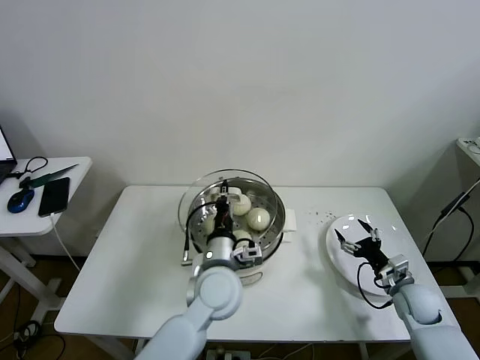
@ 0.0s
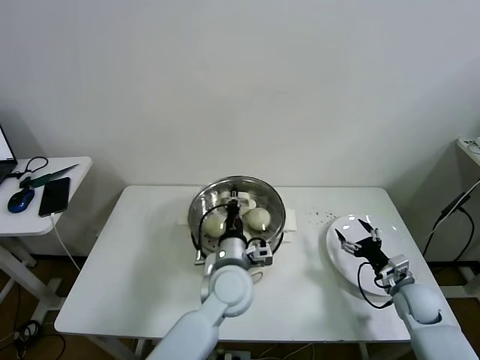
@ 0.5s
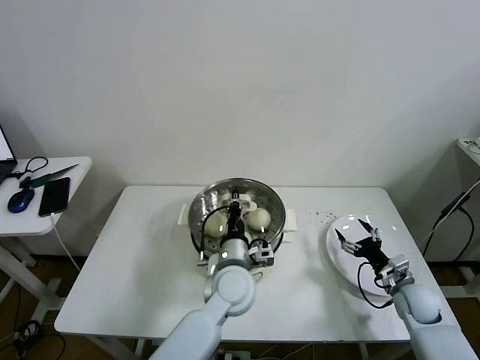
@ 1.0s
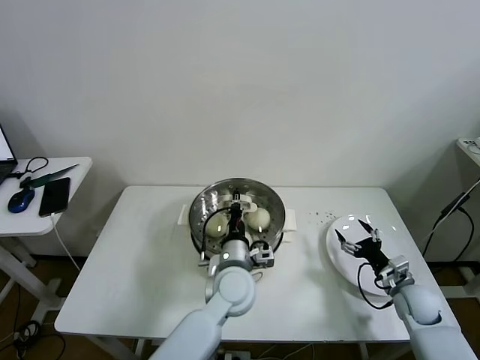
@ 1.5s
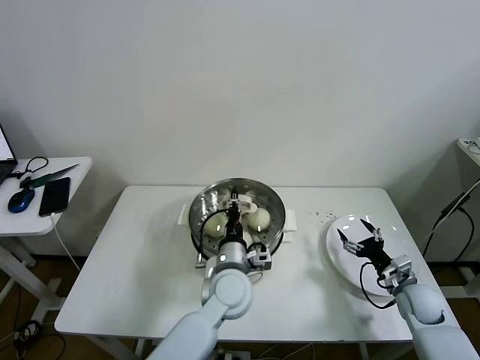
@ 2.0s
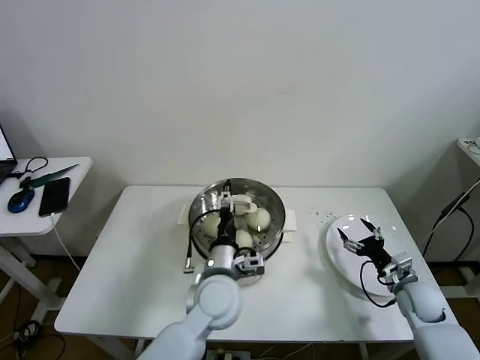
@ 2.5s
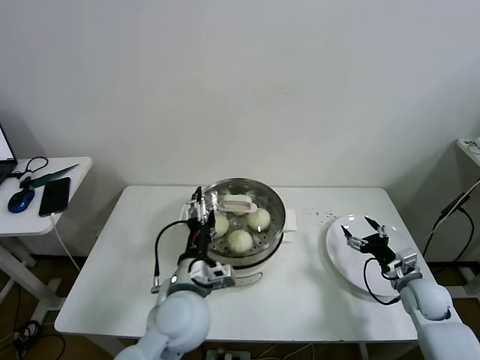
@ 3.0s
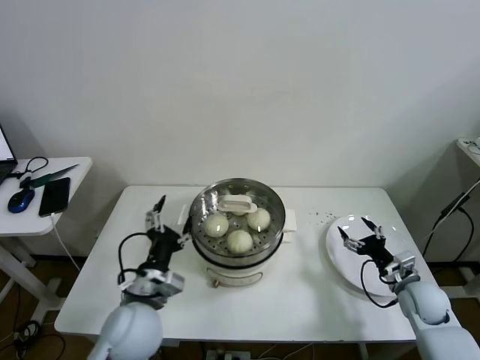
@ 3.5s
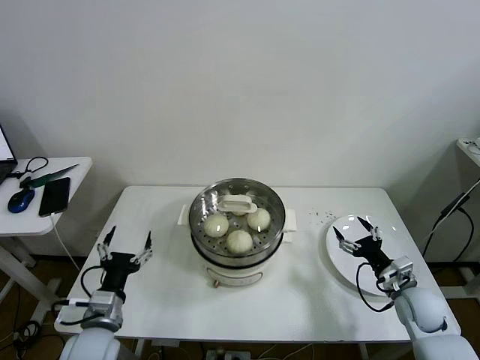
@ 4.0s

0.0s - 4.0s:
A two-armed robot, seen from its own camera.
Task of the whole recording: take steamed baozi put them in steamer then cover it.
Step, 0.0s - 2.0s: Place the pot lid on the steamer with left gripper.
0.0s - 2.0s: The left gripper shifts by roughly 5 cm.
2.0s - 4.0s: The left gripper is displaced to the left and backward by approximately 25 cm, and opens.

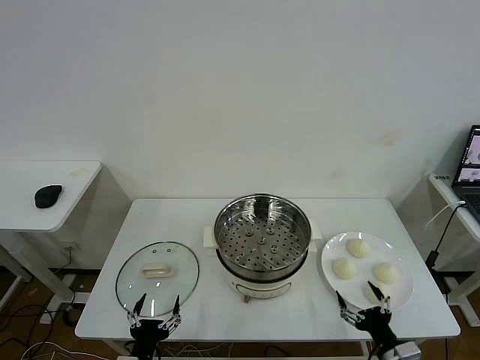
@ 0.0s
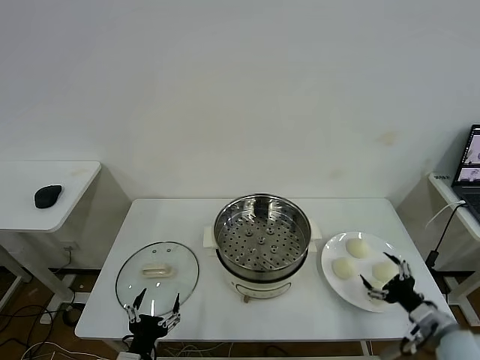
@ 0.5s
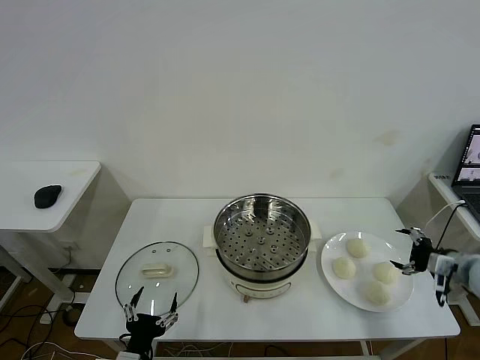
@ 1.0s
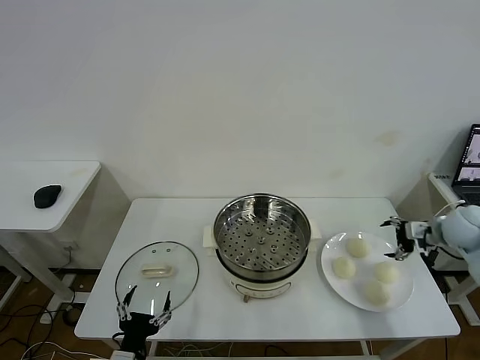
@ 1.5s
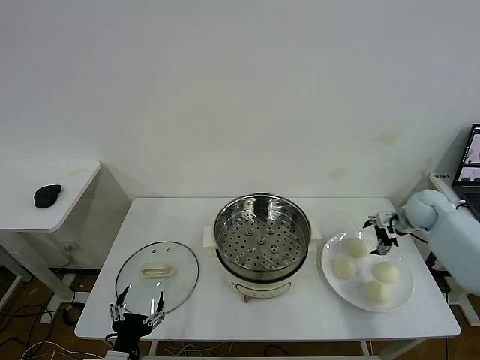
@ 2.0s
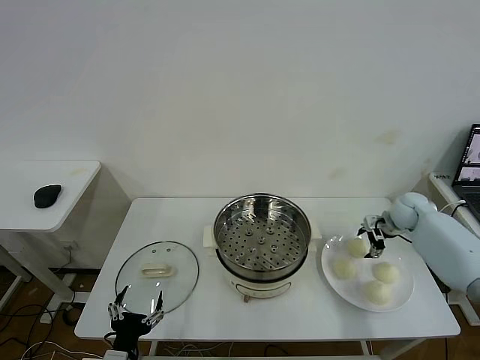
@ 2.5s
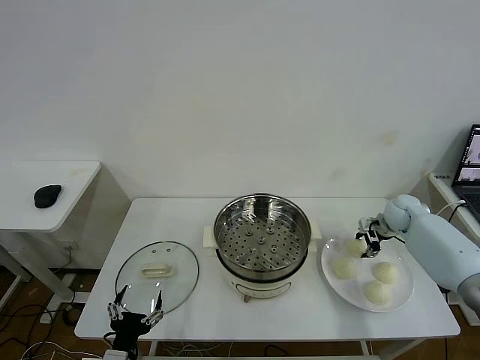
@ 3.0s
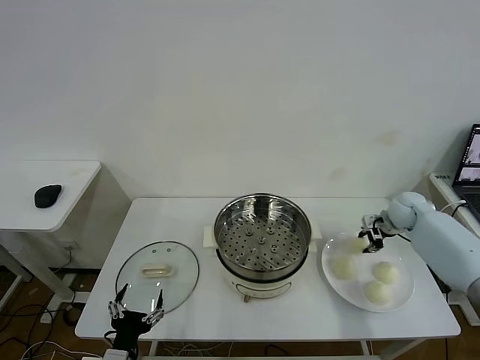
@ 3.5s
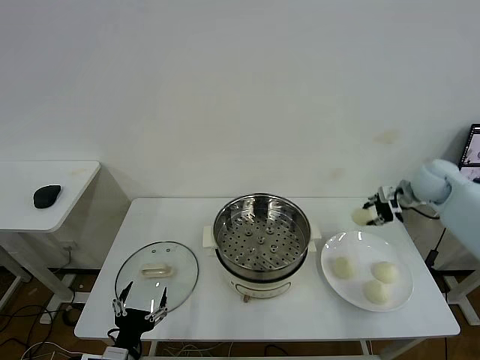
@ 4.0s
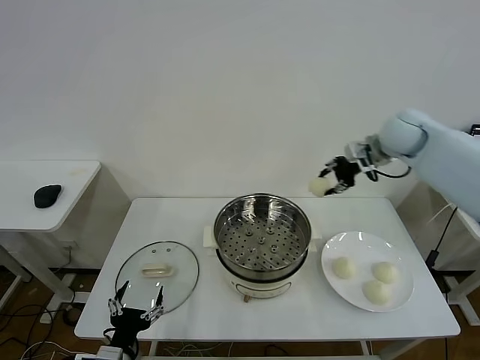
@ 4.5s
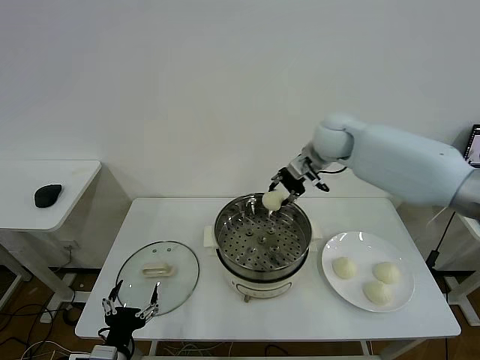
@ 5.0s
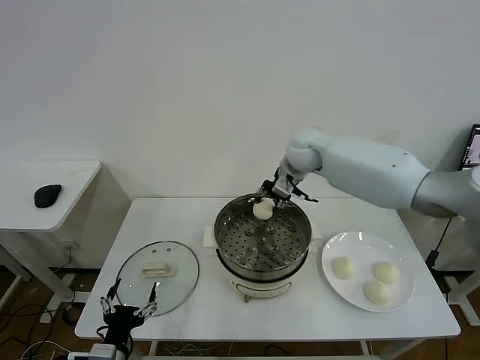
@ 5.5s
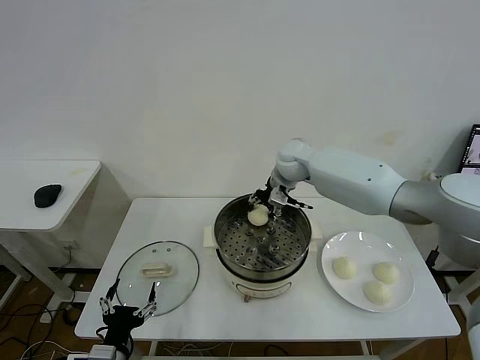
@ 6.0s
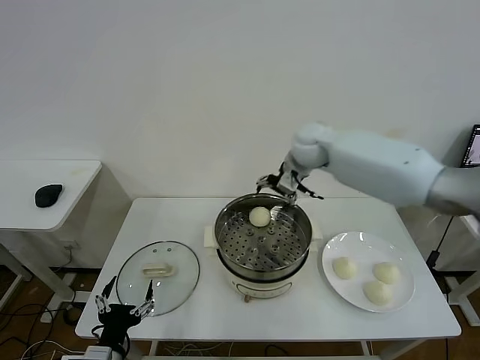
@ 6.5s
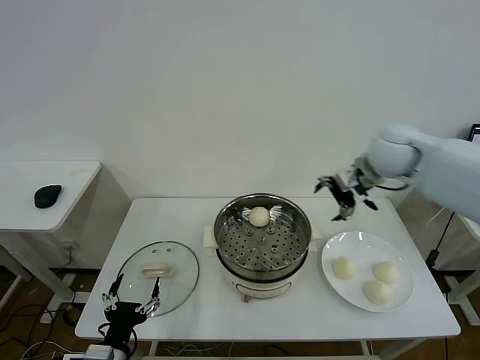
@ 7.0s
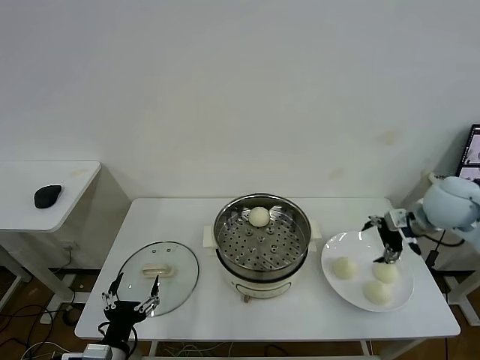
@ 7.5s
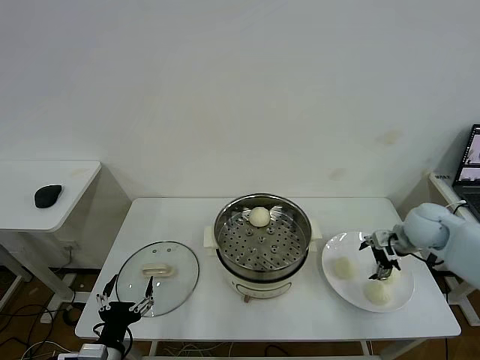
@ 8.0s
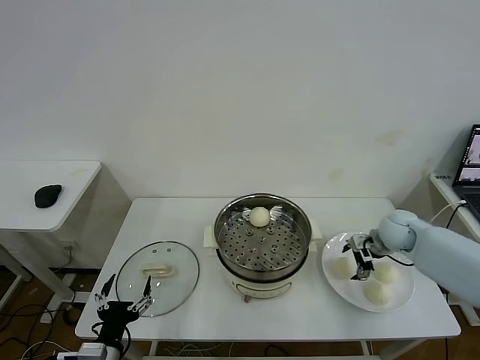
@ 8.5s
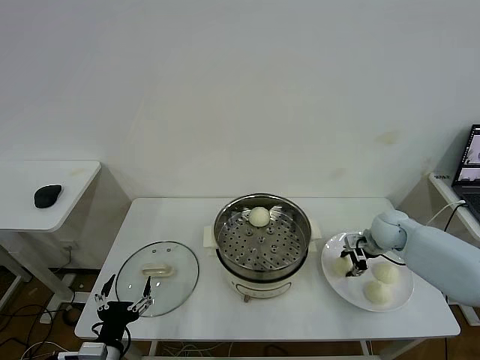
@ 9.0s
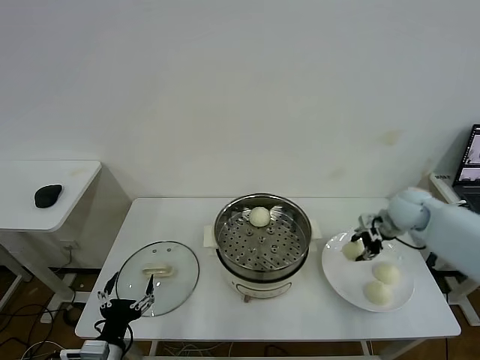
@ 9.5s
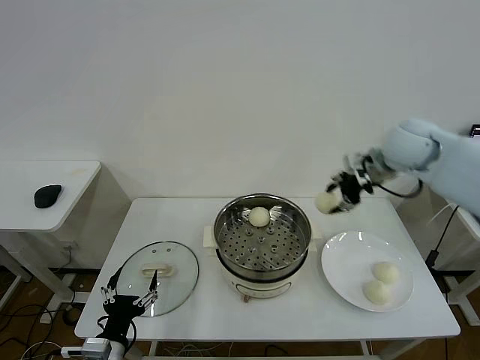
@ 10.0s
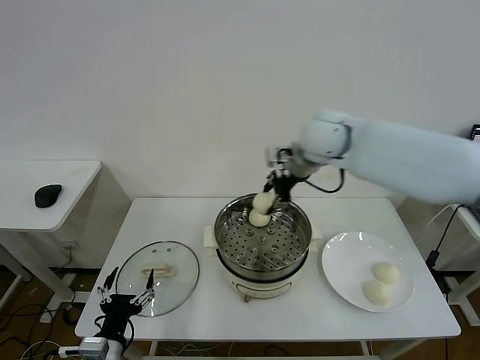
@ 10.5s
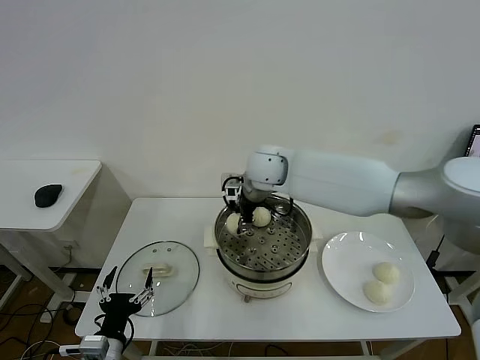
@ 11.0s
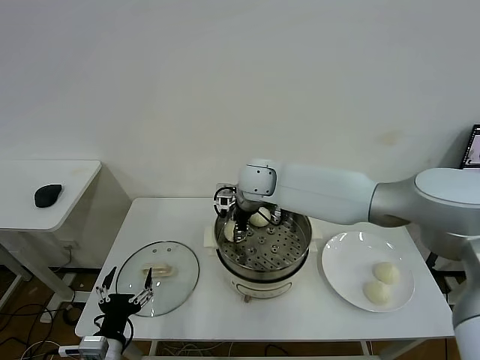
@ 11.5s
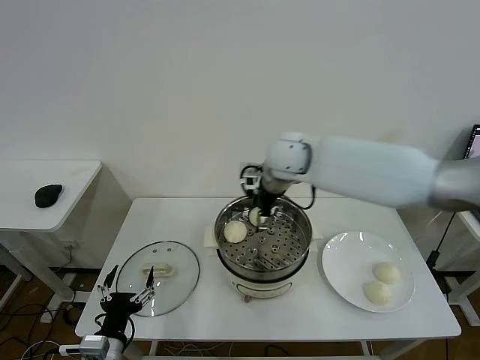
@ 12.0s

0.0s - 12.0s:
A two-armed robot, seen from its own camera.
Task of the whole recording: take steamed baozi put them in steamer then cover it.
Step, 0.0s - 3.0s: Grasp the baozi in the plate with right gripper.
Step, 3.5s - 6.0s: Place the baozi on the steamer with right gripper.
Step, 6.5s - 8.5s: Grasp the baozi in the plate with right gripper.
Step, 9.0s - 11.5s: Place the baozi on the steamer with right gripper.
2.0s - 4.0s: The right gripper heads upward, covering some 10 cm, and closes up.
4.0s - 6.0s: The right gripper heads to the left, covering roughly 30 cm.
6.0s - 8.0s: The right gripper shifts roughly 30 cm to the right and backward, and opens up.
8.0s - 10.0s: The right gripper moves upward and to the left, about 20 cm, and closes up.
10.0s - 12.0s: The right gripper moves to the left, some 20 cm, and opens up.

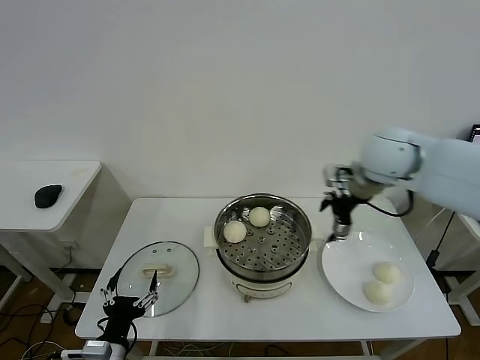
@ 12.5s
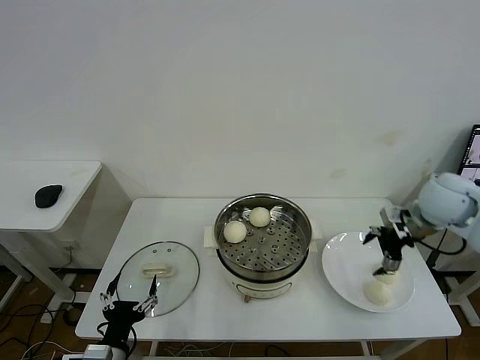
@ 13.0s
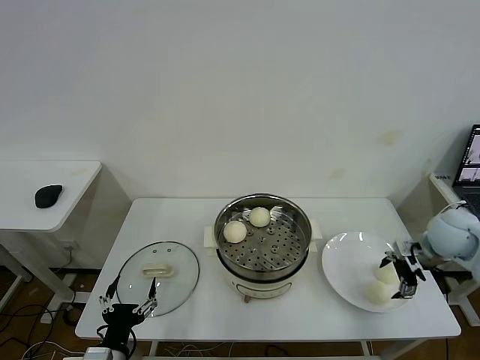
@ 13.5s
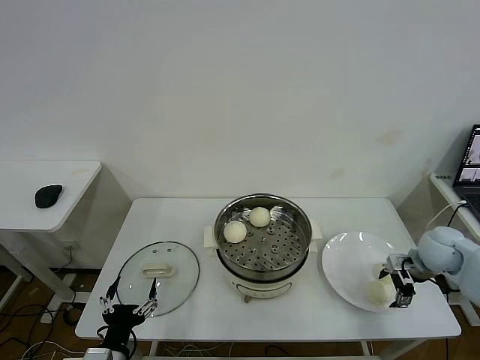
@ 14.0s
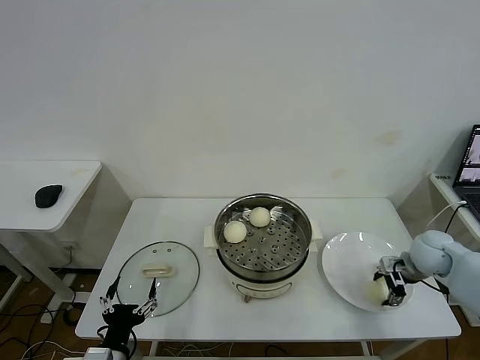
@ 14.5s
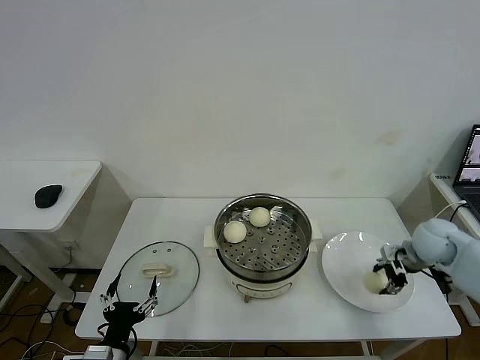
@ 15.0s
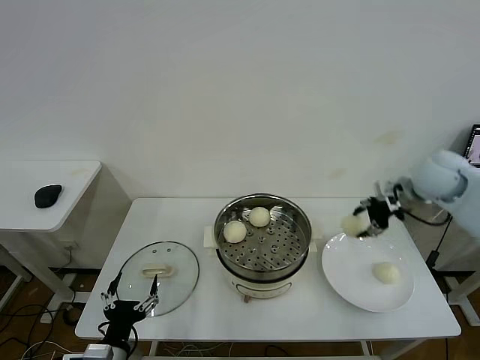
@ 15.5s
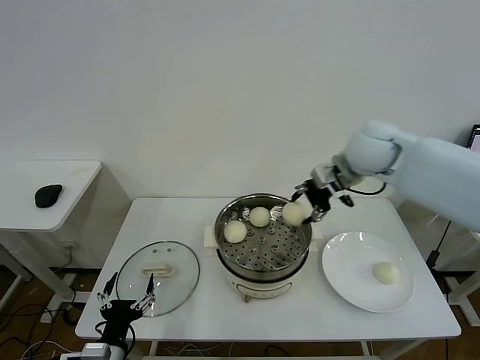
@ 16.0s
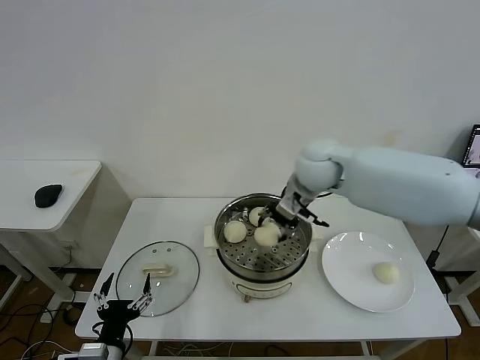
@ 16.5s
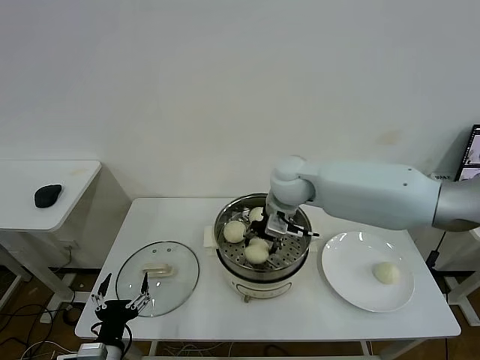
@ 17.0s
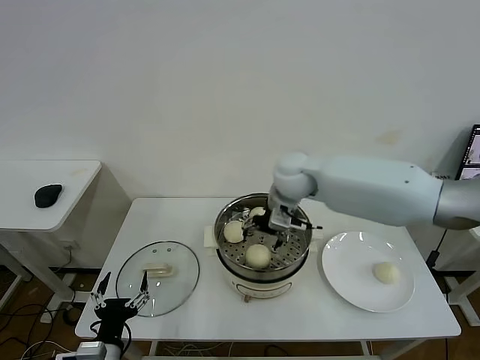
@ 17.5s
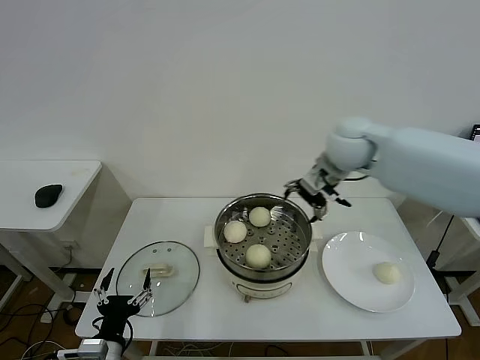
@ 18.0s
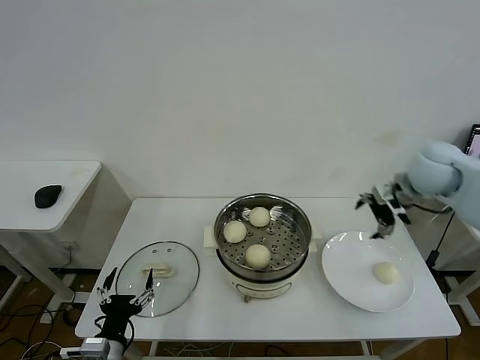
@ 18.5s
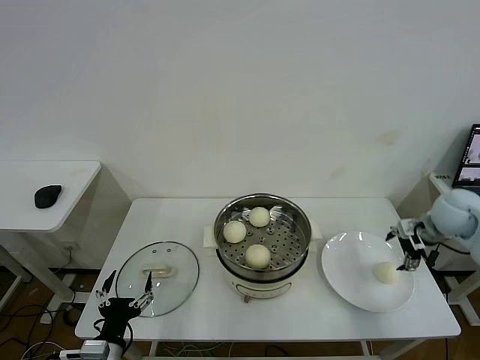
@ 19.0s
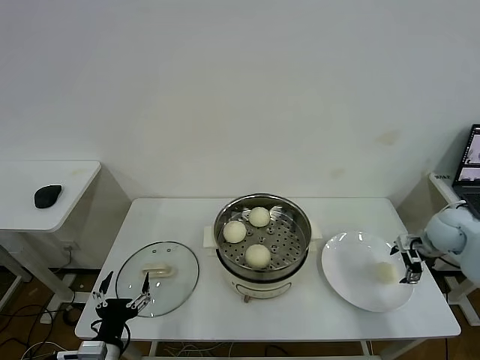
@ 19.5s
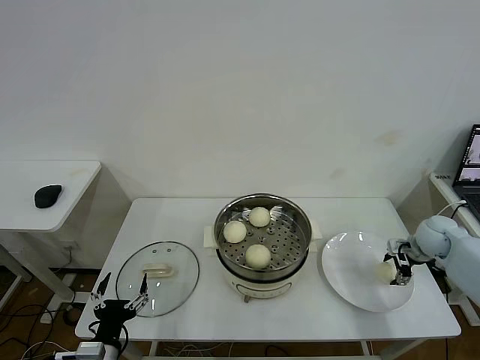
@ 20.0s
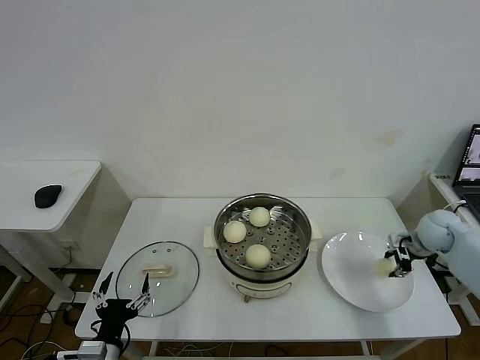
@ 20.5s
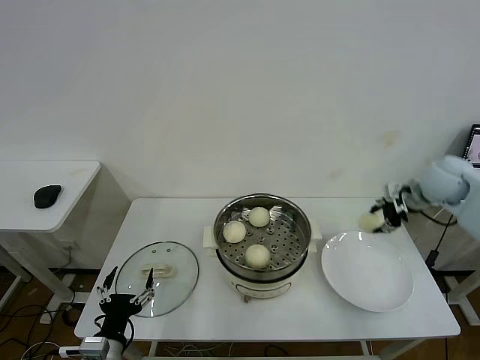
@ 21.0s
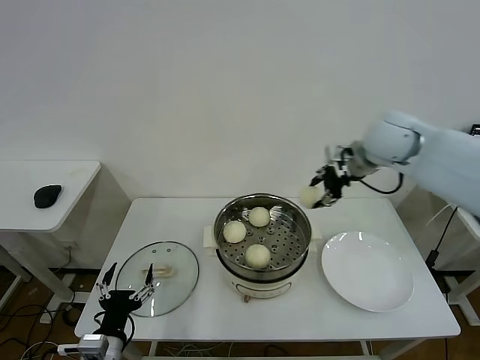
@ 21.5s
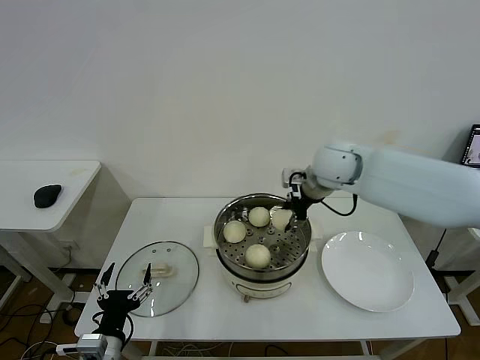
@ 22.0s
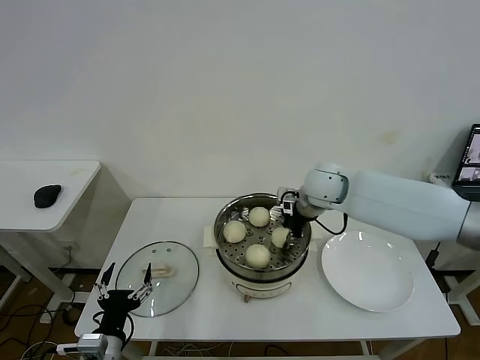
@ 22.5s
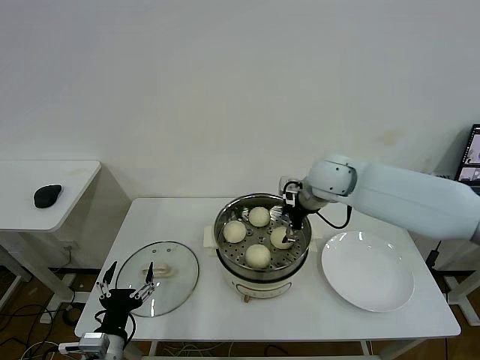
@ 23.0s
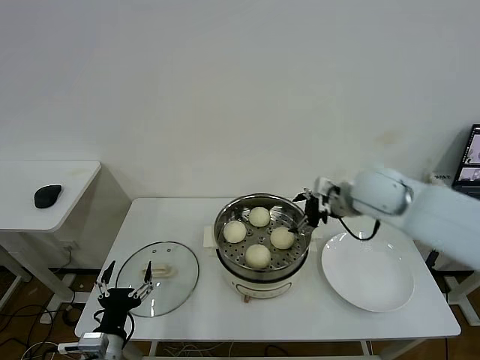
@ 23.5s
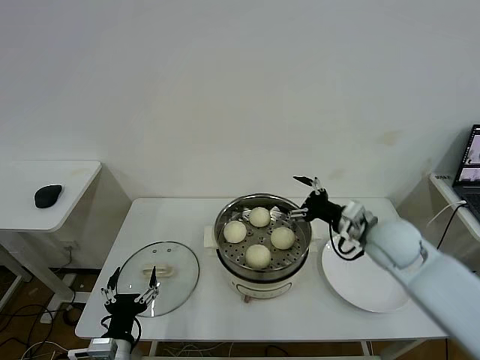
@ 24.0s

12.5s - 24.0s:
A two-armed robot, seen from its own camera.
Task of the whole recording: take steamed baozi put them in steamer then cover it.
Step, 12.5s - 14.5s: Grasp the baozi in the plate with right gripper.
Step, 15.0s - 17.0s: Place the baozi on the steamer with right gripper.
Step, 17.5s - 20.0s: Grasp the baozi in the plate with right gripper.
Step, 20.5s - 22.5s: Place the baozi on the steamer with right gripper.
12.5s - 14.5s: The right gripper shifts roughly 30 cm downward and to the right.
14.5s - 16.5s: The right gripper travels to the left and upward by approximately 35 cm.
16.5s - 18.5s: The right gripper is displaced to the right by roughly 20 cm, and opens its fingers.
18.5s - 20.0s: The right gripper heads downward and to the right, covering some 25 cm.
20.0s - 22.0s: The right gripper shifts about 35 cm to the left and upward, and closes its fingers.
22.0s - 24.0s: The right gripper shifts about 20 cm backward, to the right and downward, and opens.
